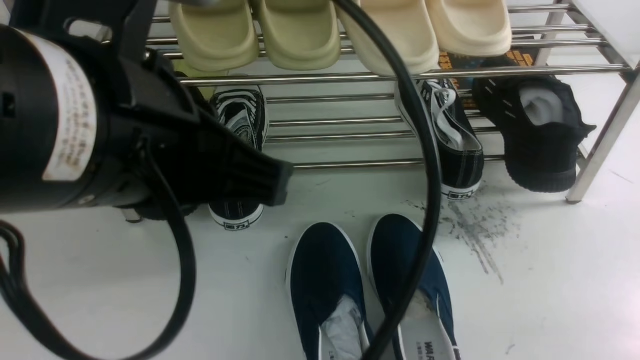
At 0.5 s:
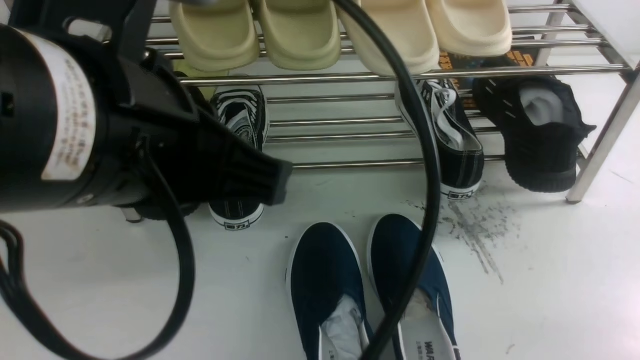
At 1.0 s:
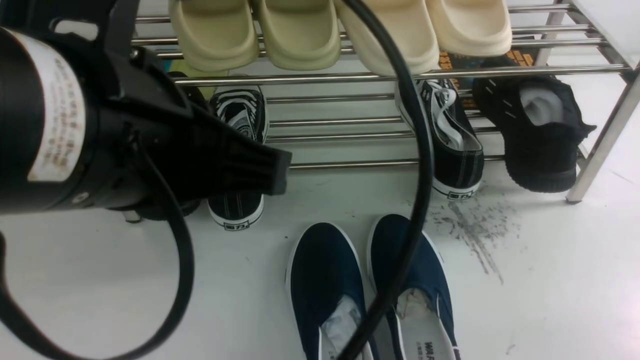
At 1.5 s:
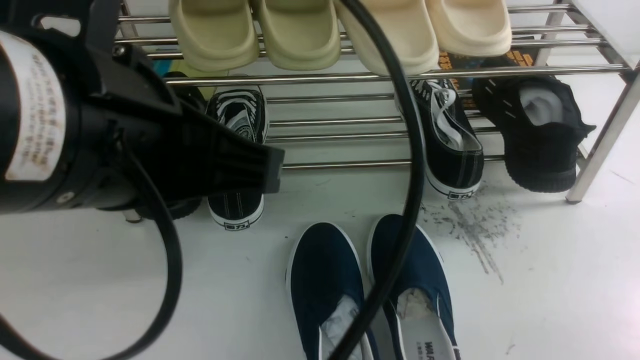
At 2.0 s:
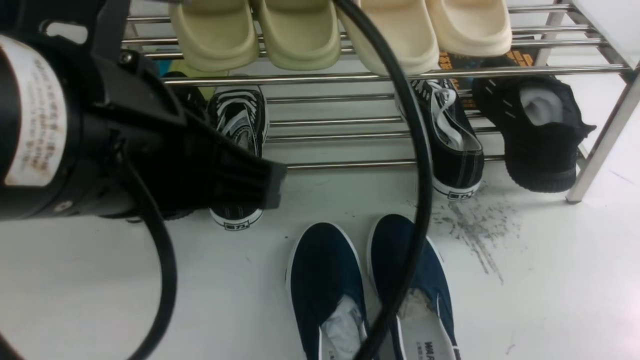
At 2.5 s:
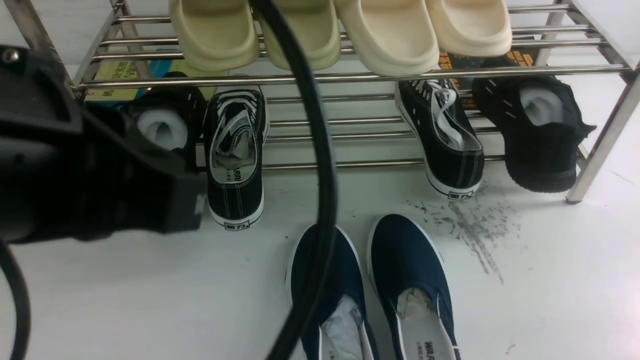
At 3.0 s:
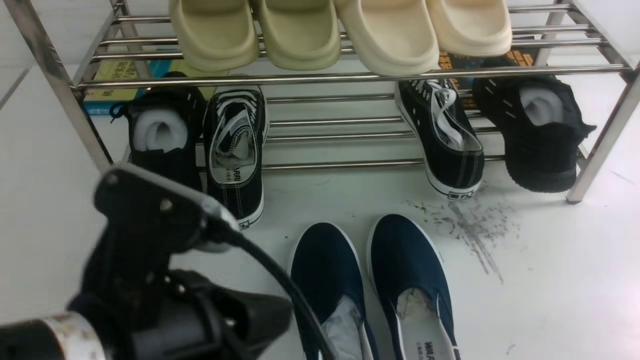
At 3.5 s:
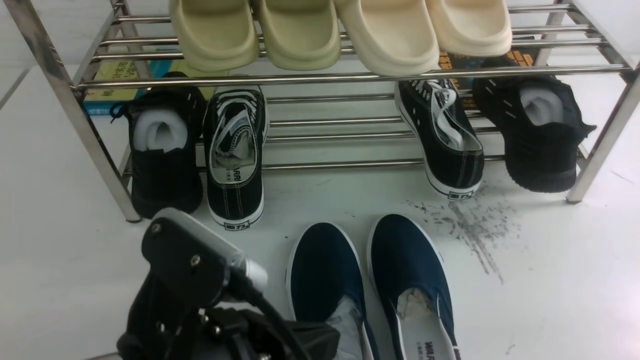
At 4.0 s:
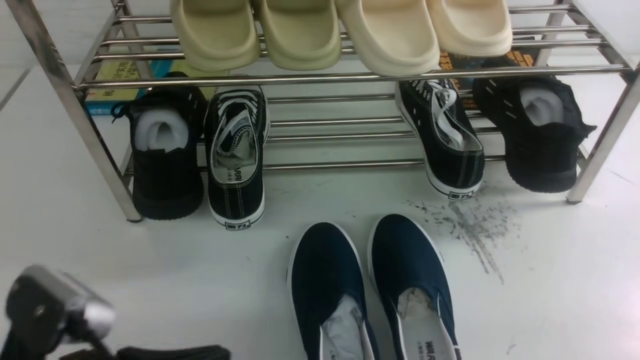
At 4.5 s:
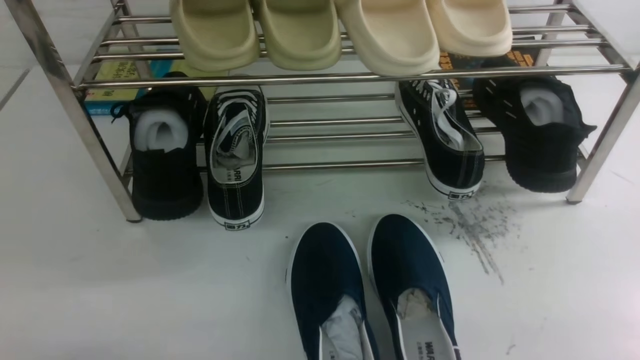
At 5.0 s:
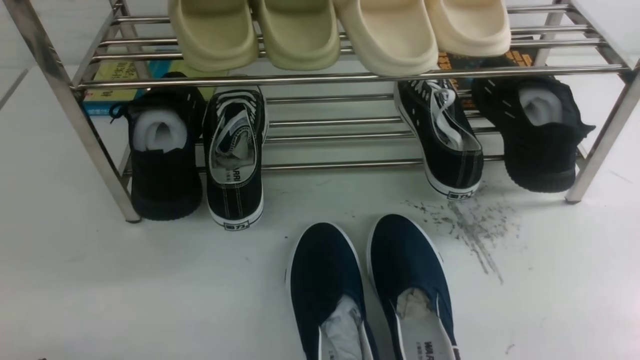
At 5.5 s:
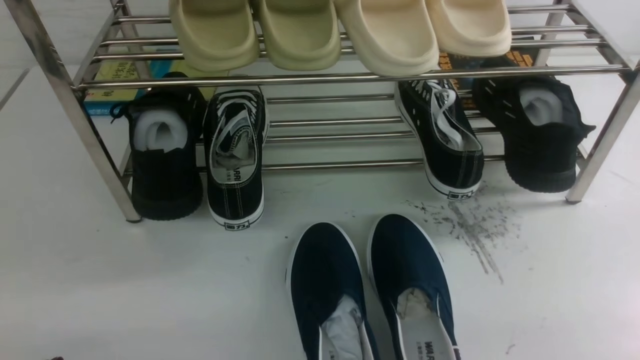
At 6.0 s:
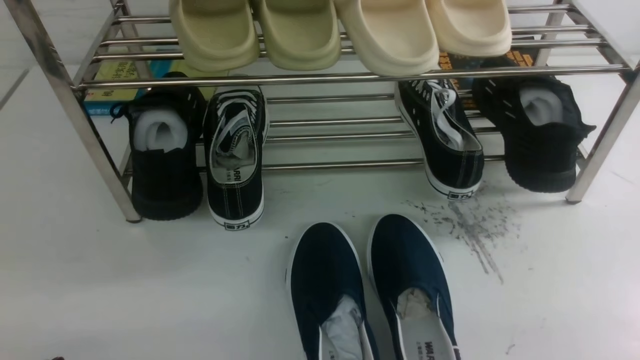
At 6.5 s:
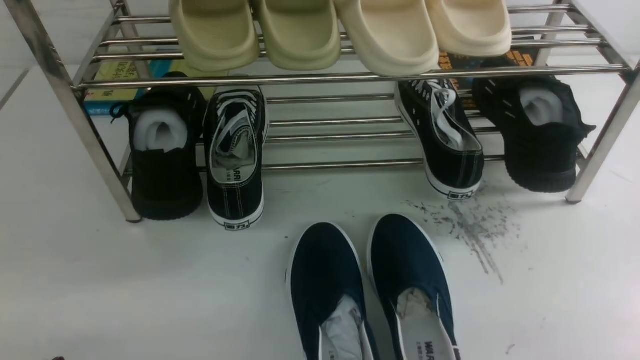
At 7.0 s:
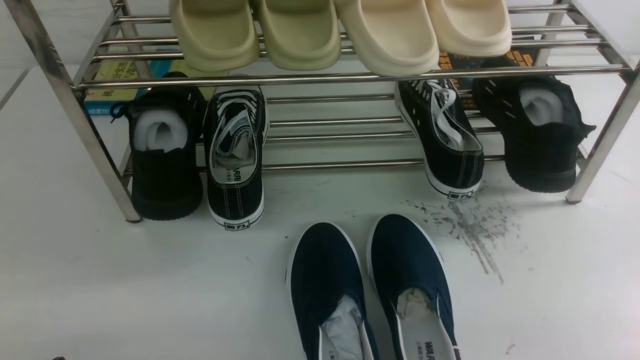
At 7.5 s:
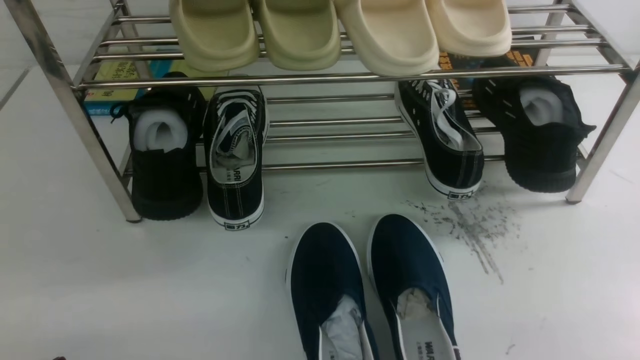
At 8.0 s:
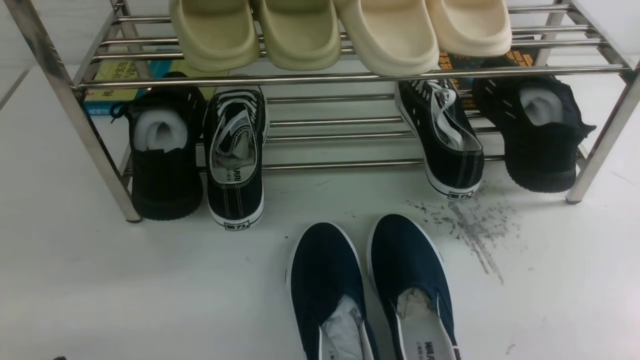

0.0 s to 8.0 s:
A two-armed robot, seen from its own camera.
0.0 to 2.0 s: The grippers stay close to where they were, moving slightly.
2.0 to 4.0 s: The left gripper is displaced downward by approximately 20 cm.
4.0 to 6.0 s: The left gripper moves to the left and downward, some 10 cm.
6.0 to 8.0 s: The two grippers keep their place.

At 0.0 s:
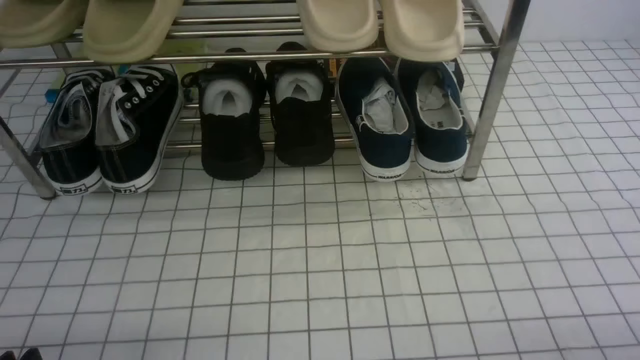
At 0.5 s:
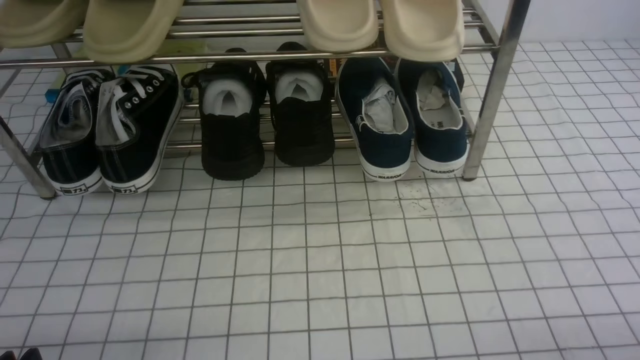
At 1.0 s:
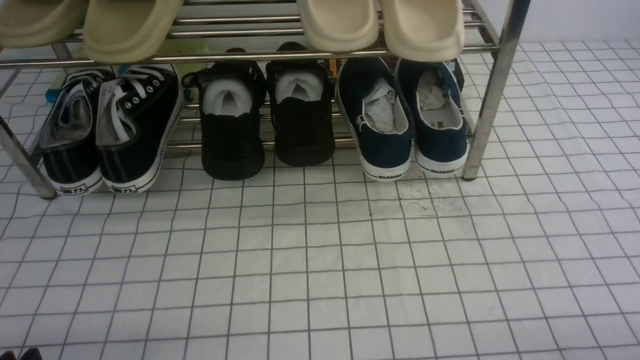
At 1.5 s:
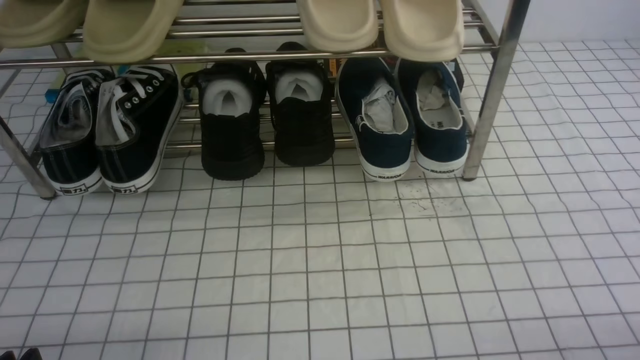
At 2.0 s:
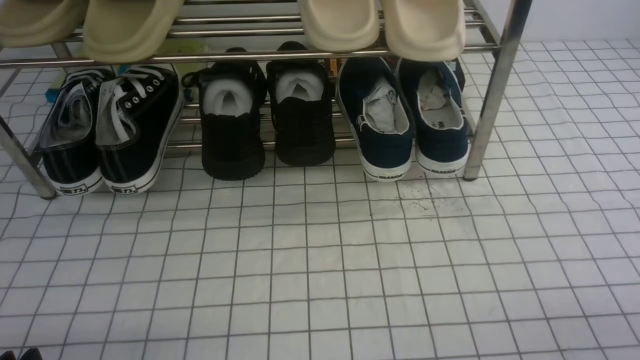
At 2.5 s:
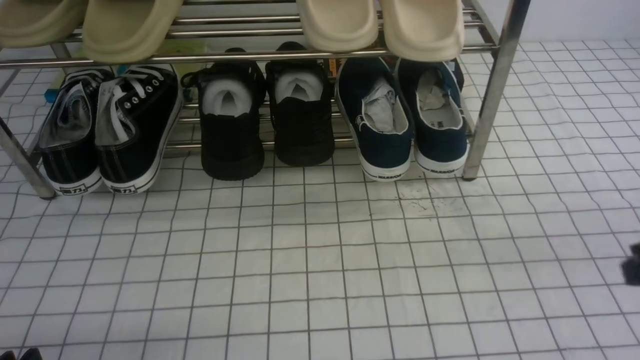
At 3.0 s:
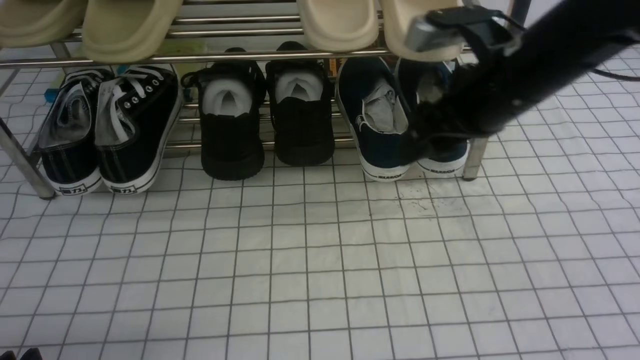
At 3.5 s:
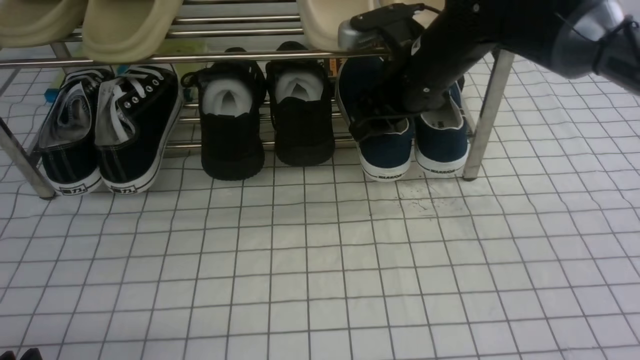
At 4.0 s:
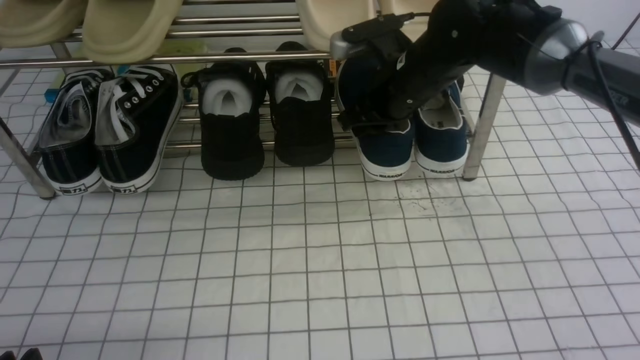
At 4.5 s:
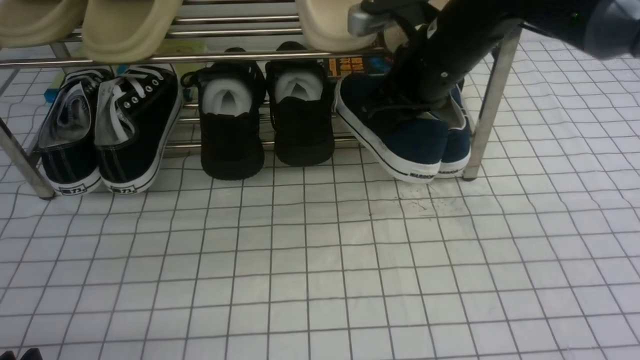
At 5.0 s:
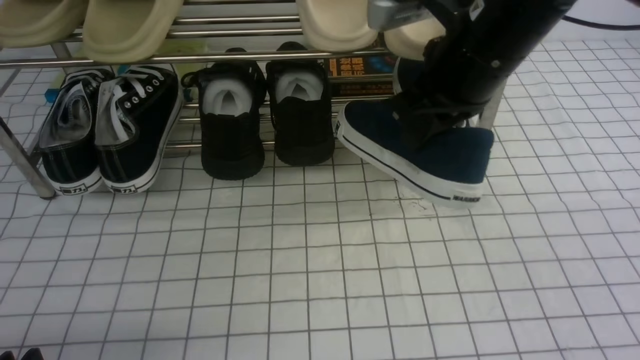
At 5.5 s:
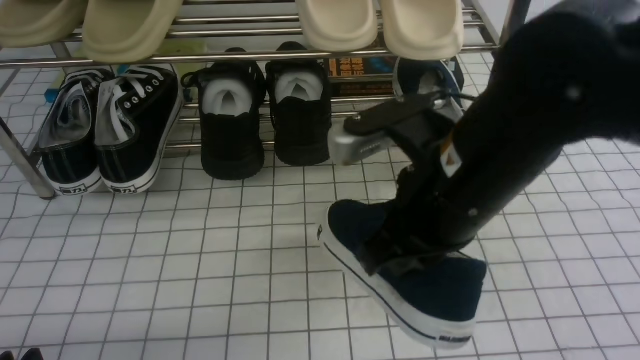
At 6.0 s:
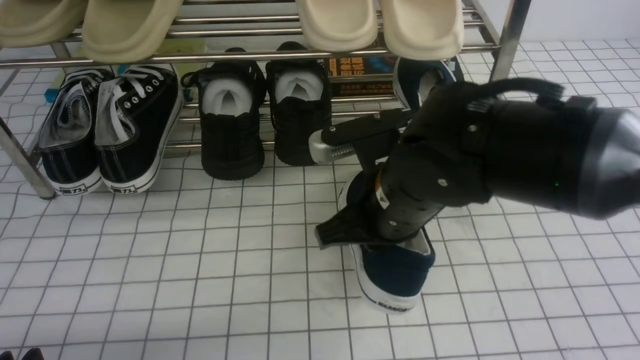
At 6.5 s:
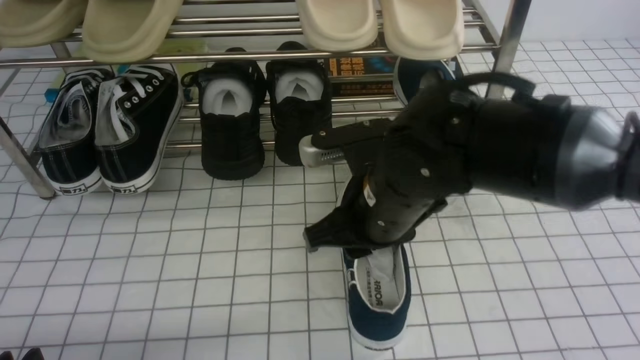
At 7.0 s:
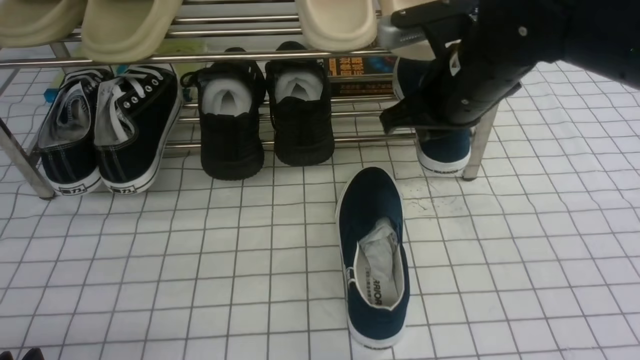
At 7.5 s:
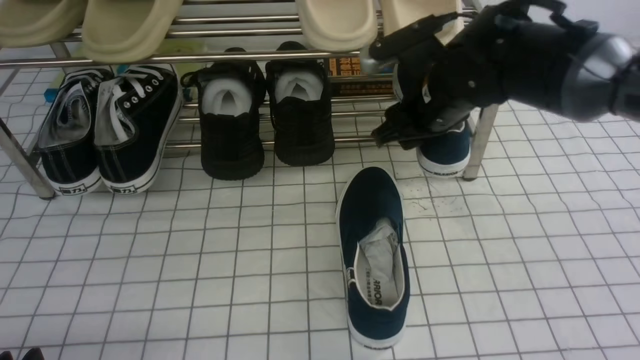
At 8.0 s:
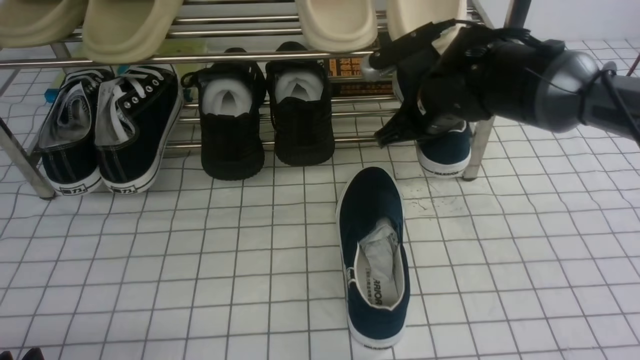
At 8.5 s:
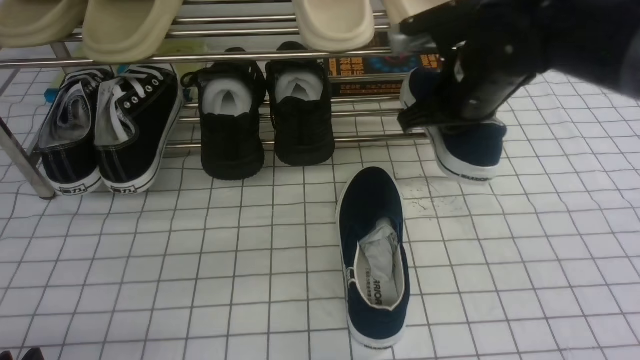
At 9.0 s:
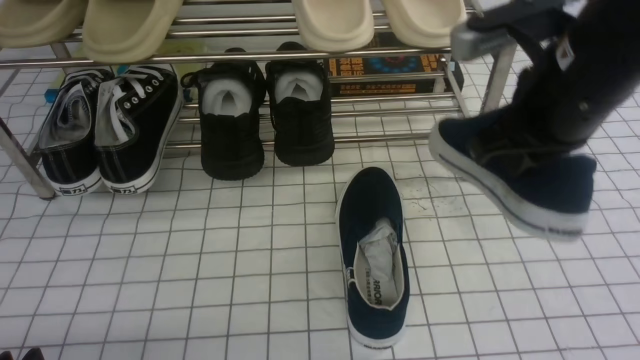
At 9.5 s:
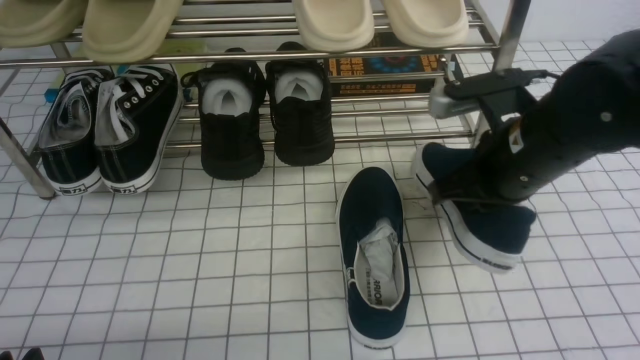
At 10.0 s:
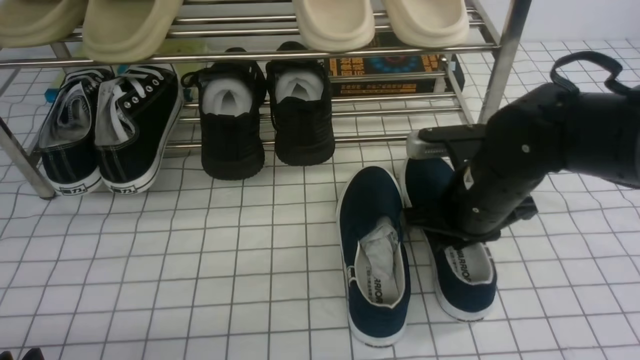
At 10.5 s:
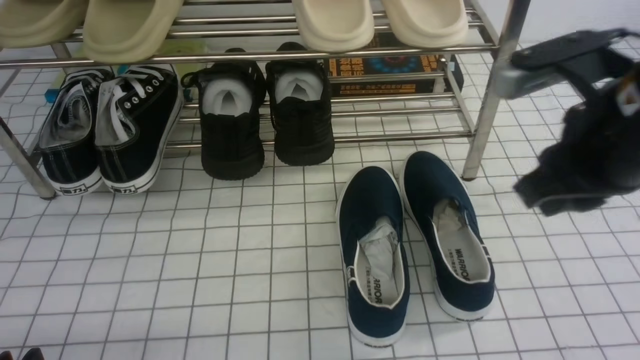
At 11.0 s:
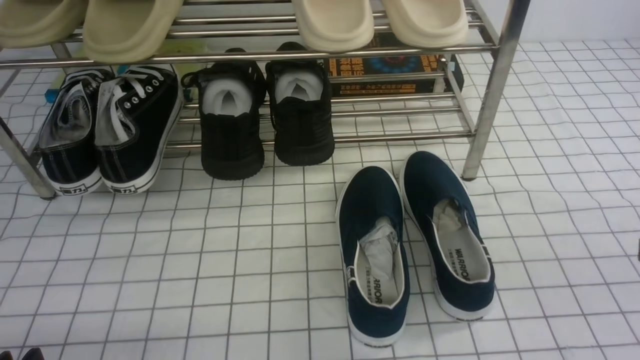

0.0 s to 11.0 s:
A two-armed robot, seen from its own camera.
Step, 0.0 to 4.0 s: use the right arm to clamp a shoe on the right side of the shoe rack.
Step, 4.5 to 6.5 s: use the right arm to take out the clamped shoe from the shoe rack and put it down.
Step, 7.0 to 7.5 s: use the right arm to clamp a shoe on the right side of the shoe rack.
Step, 8.0 to 10.0 s: use the right arm to take out the clamped shoe from the shoe rack and put it down.
2.0 to 3.5 s: The right gripper heads forward and to the left, covering approximately 40 cm, and opens up.
3.5 to 5.5 s: The right gripper moves backward, about 20 cm, and closes its fingers. Meanwhile the left gripper opens up.
5.5 to 7.5 s: The left gripper opens its fingers, while the right gripper goes some 15 cm forward, and opens its fingers.
7.5 to 9.0 s: The right gripper is displaced backward, upward and to the right by some 15 cm, and closes its fingers.
9.0 to 11.0 s: The right gripper goes about 20 cm backward and to the right, and opens and closes again.

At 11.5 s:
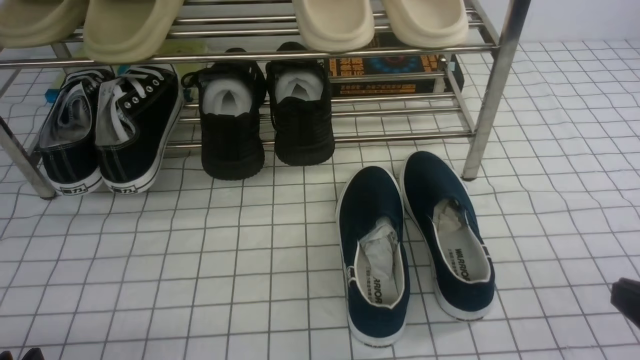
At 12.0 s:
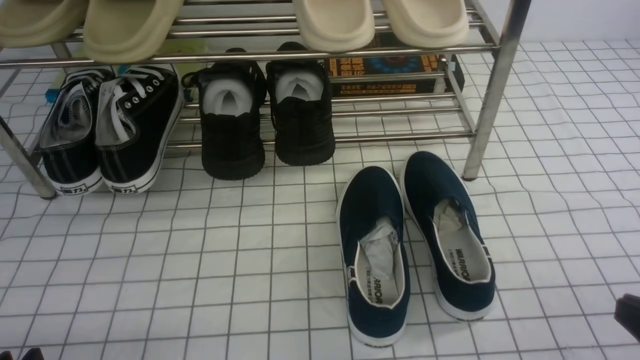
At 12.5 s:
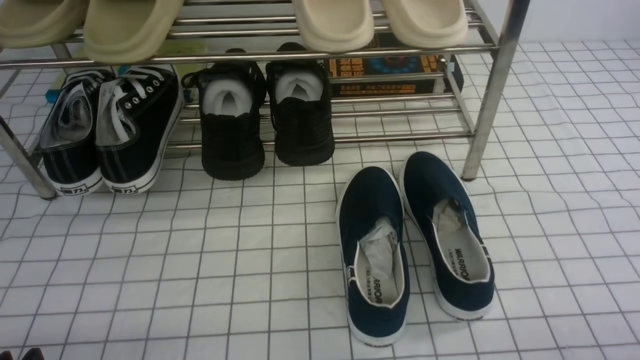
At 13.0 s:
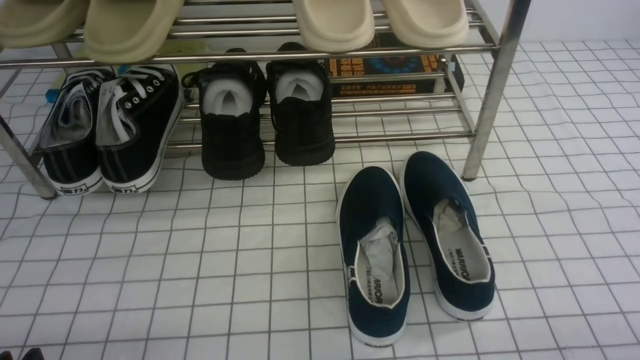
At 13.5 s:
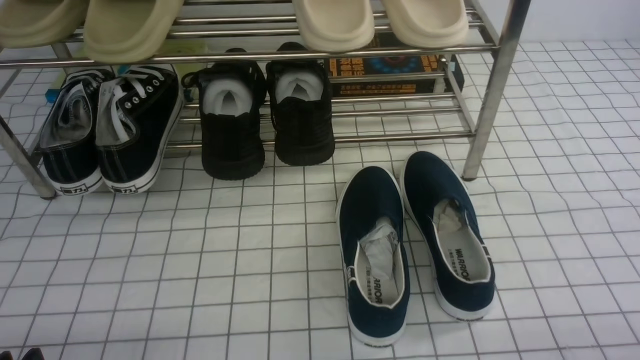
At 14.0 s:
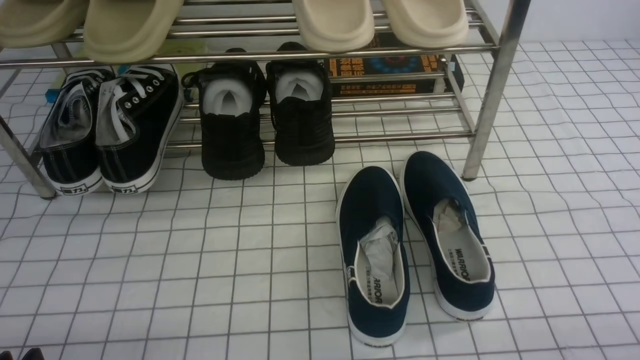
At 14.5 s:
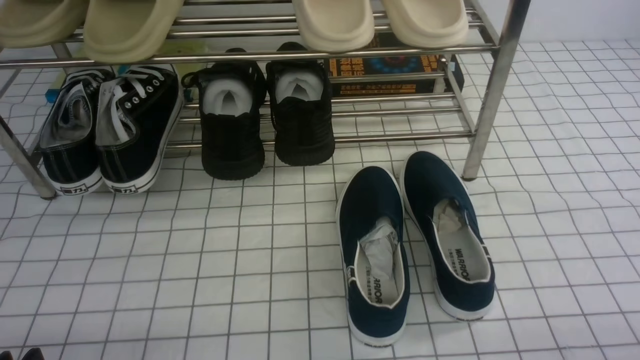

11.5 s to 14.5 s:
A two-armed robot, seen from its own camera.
13.0 to 14.5 s: Both grippers stay put.
